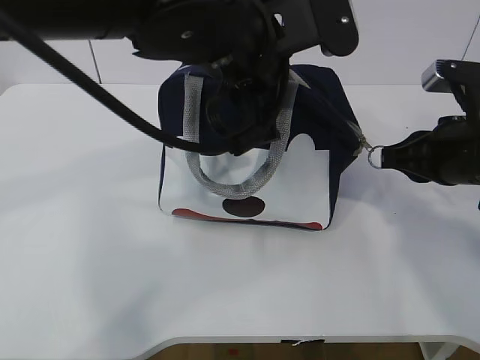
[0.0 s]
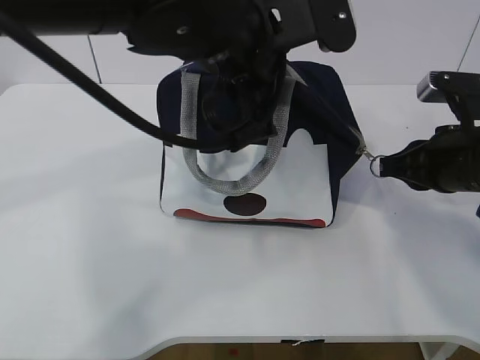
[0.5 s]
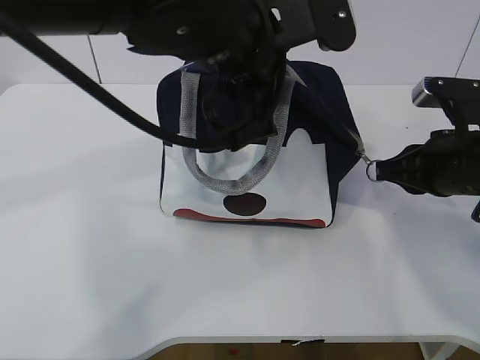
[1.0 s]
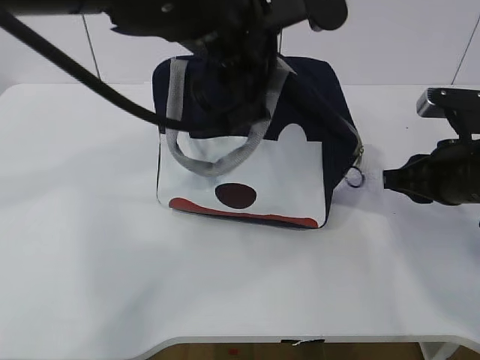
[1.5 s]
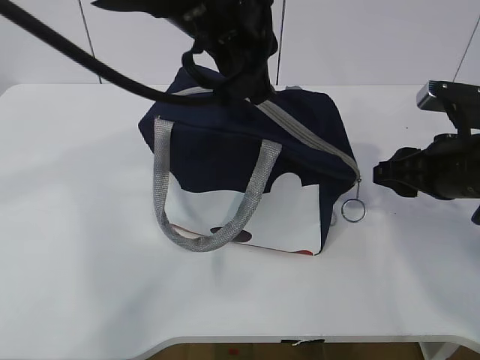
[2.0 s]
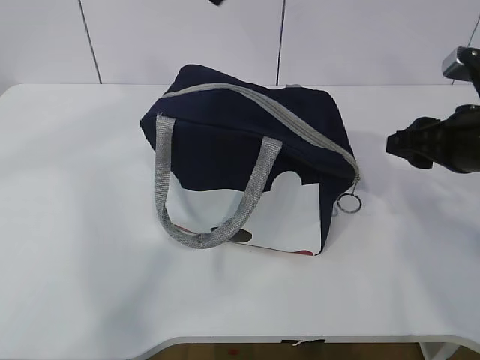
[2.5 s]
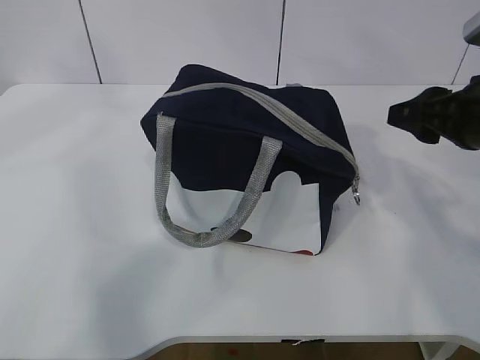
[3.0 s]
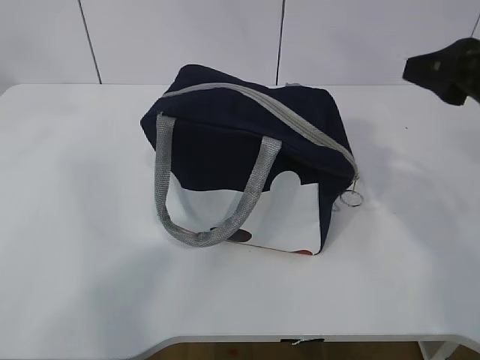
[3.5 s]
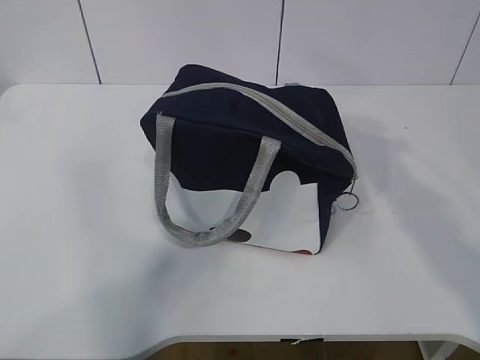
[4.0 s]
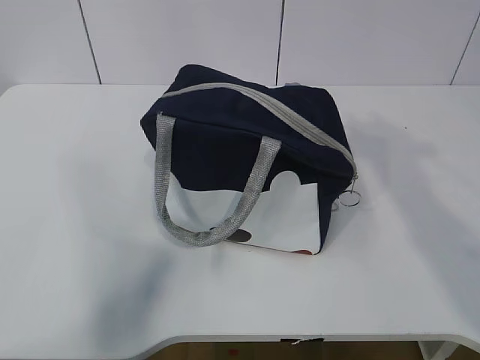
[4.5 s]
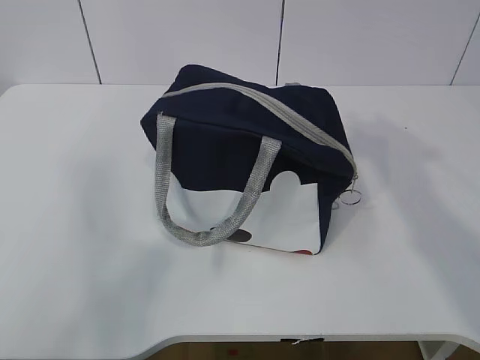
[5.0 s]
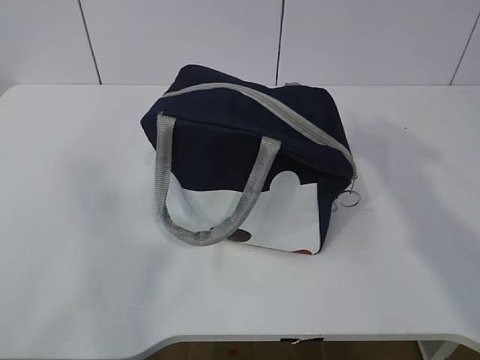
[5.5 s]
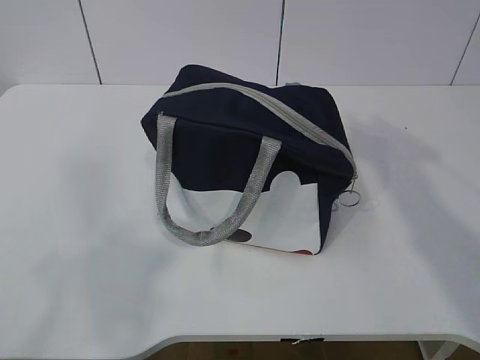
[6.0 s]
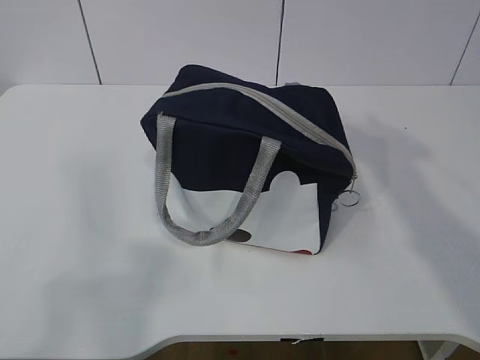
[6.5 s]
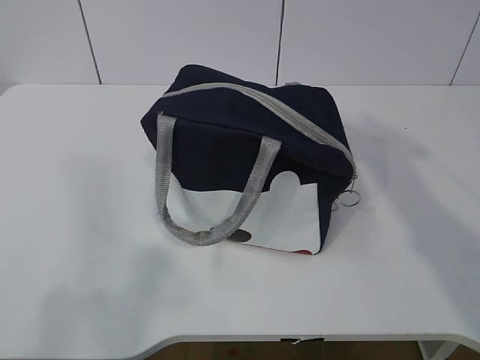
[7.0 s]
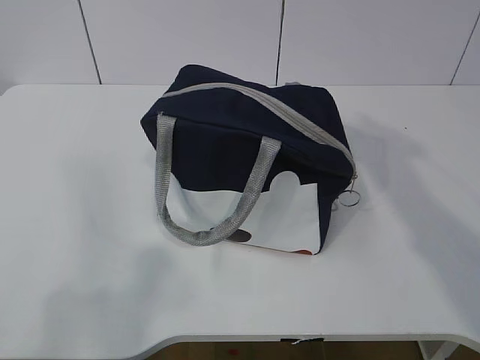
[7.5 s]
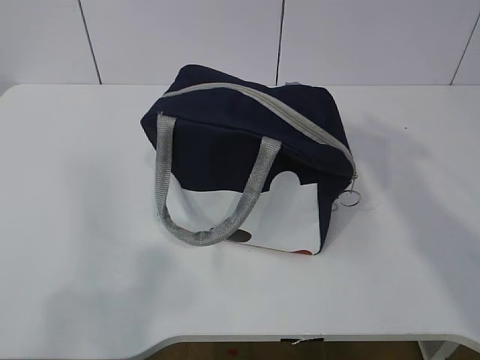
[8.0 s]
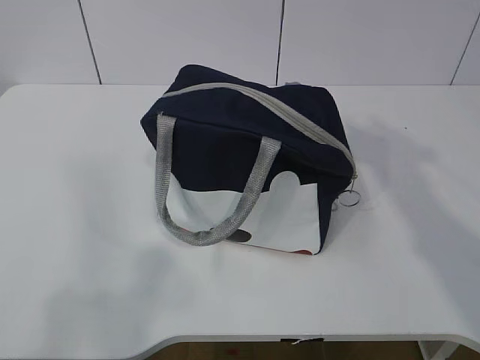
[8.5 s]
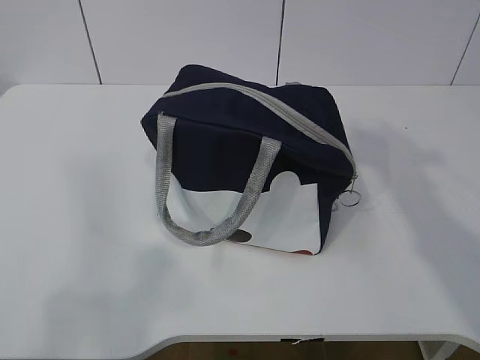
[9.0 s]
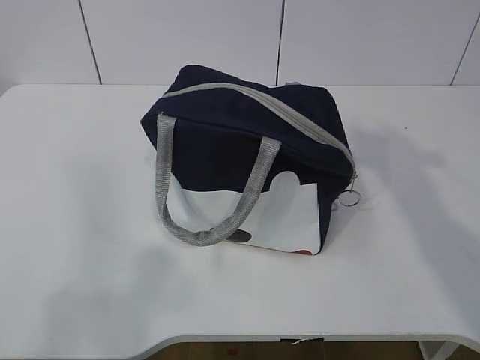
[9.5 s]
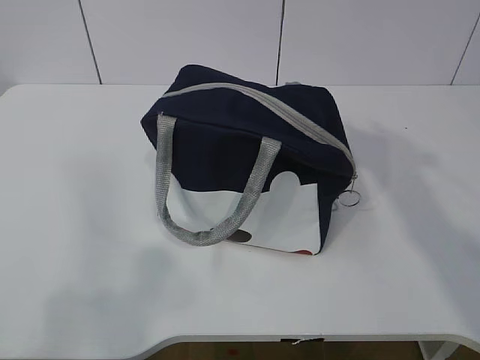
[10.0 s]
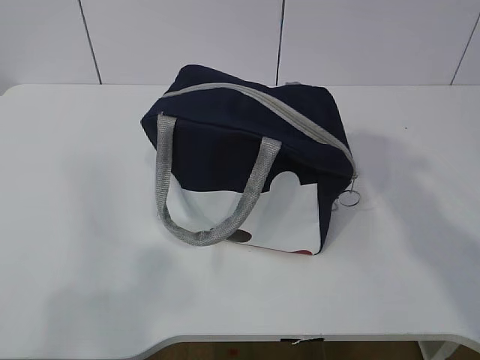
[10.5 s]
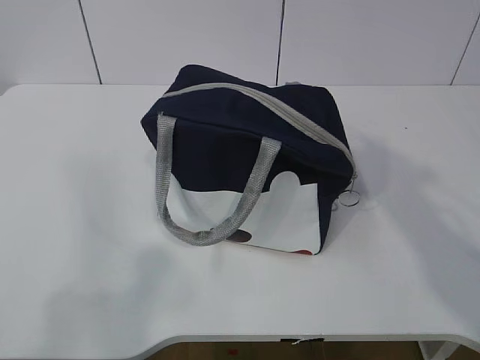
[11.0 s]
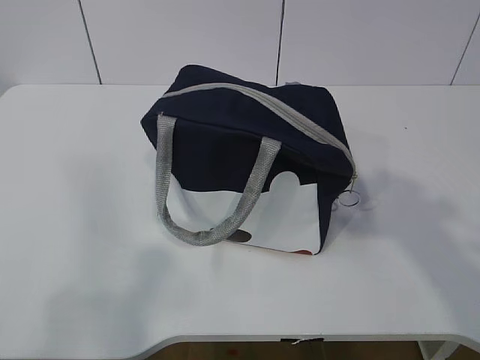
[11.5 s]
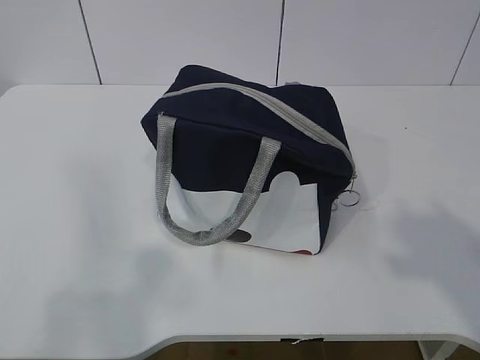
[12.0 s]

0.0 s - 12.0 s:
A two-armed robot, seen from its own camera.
0.0 s - 2.0 s: The left gripper opens, while the right gripper opens up.
2.0 s - 4.0 s: The left gripper goes about 35 cm to the left, upward and backward, while the right gripper heads upward and backward, covering about 20 cm.
4.0 s - 6.0 s: The right gripper moves backward, approximately 5 cm. The left gripper travels downward, backward and to the left by roughly 25 cm.

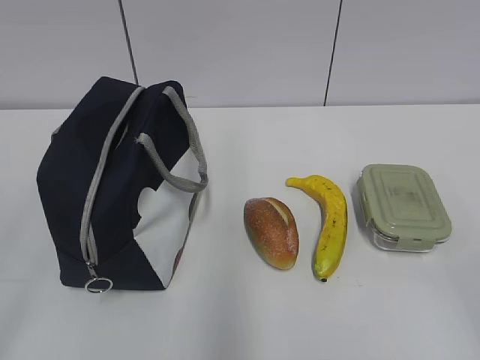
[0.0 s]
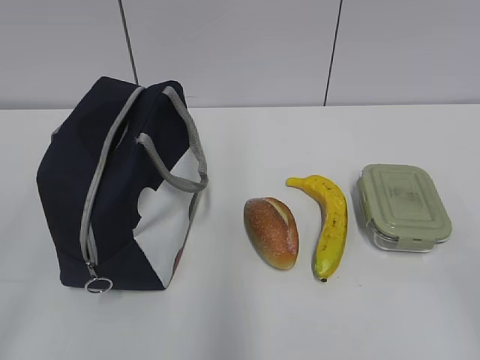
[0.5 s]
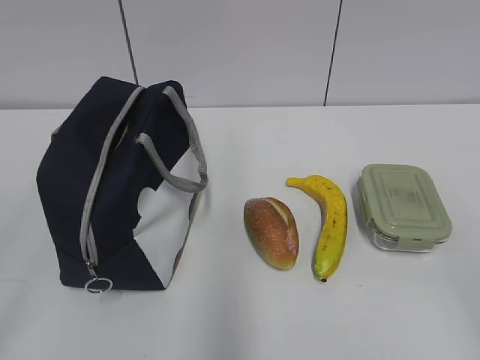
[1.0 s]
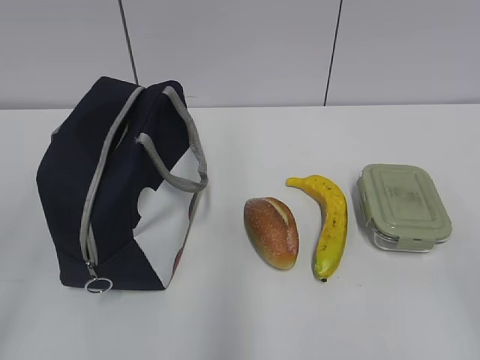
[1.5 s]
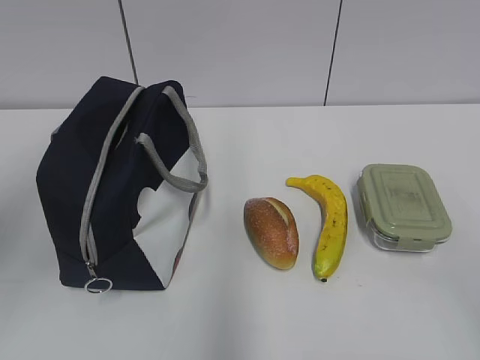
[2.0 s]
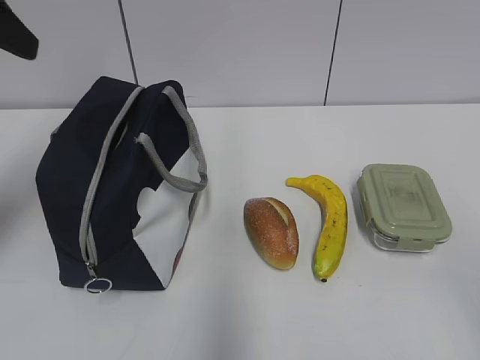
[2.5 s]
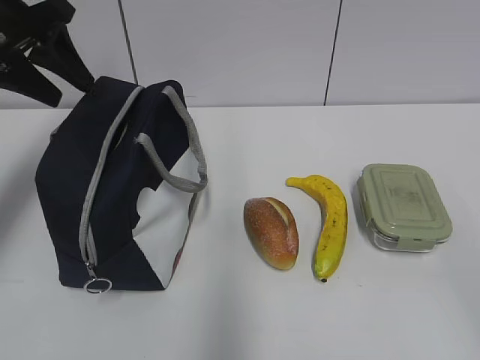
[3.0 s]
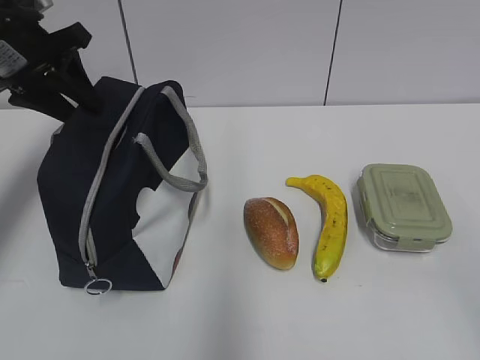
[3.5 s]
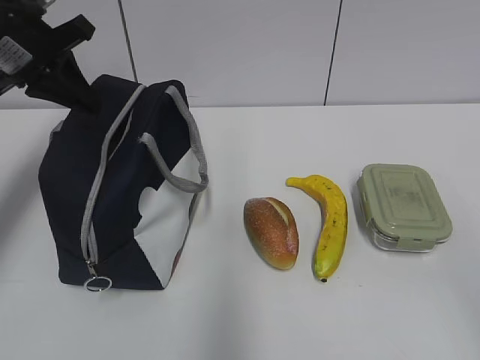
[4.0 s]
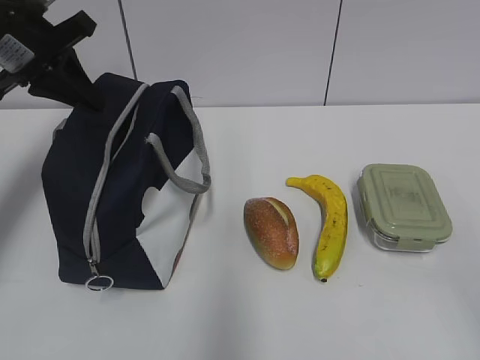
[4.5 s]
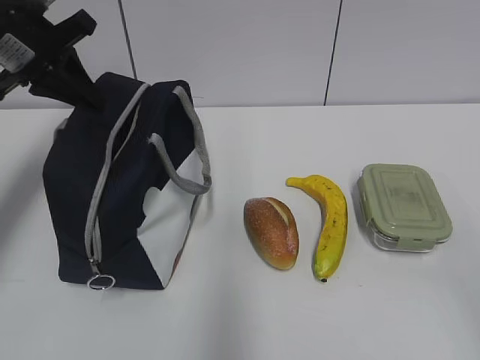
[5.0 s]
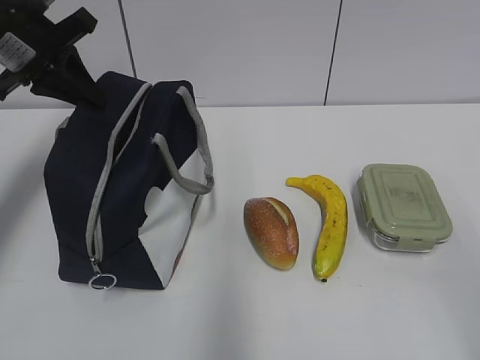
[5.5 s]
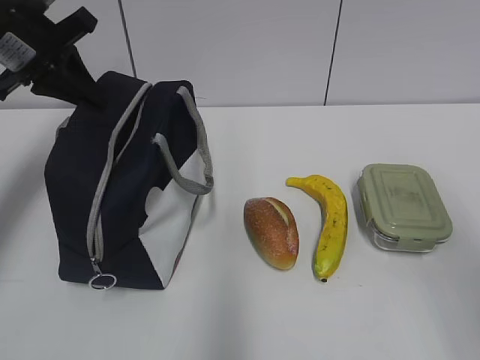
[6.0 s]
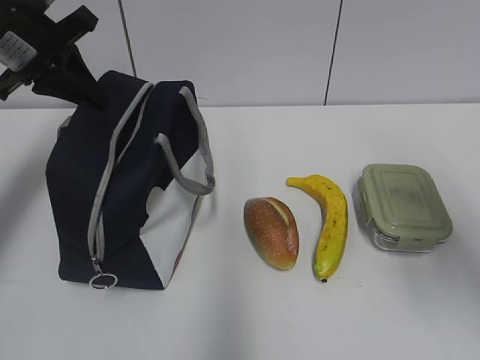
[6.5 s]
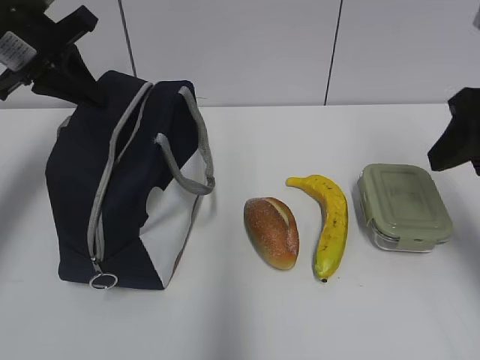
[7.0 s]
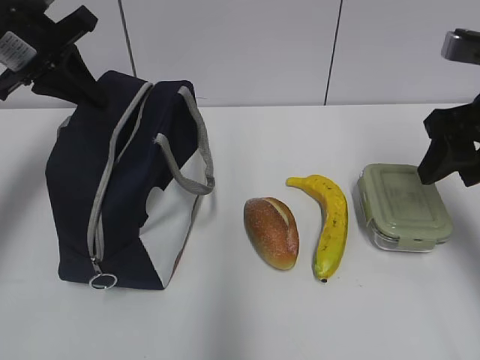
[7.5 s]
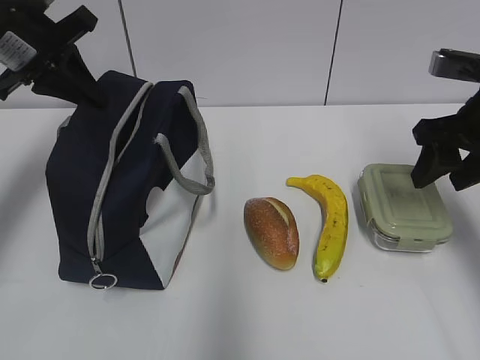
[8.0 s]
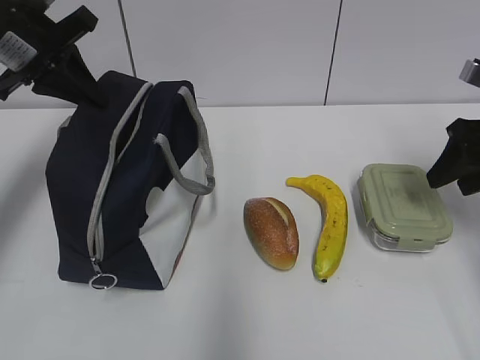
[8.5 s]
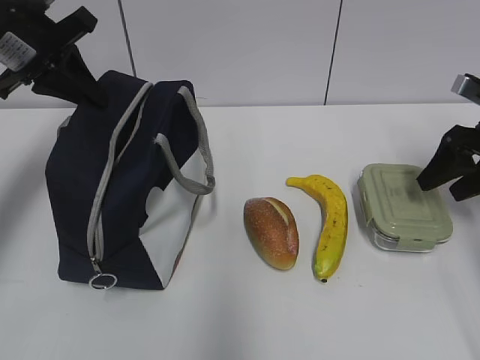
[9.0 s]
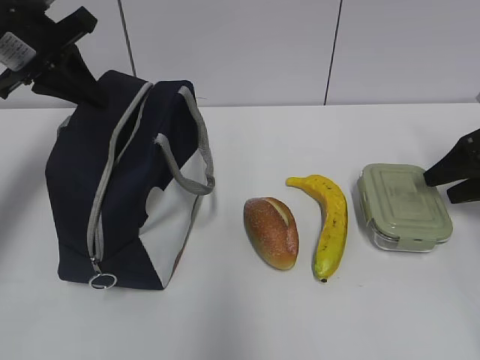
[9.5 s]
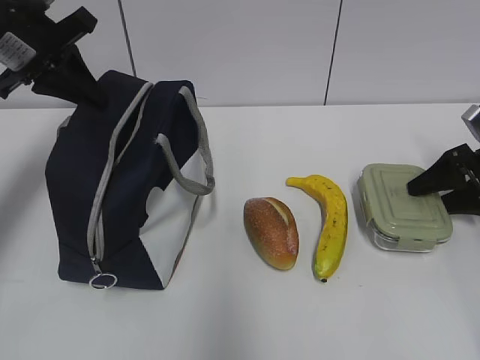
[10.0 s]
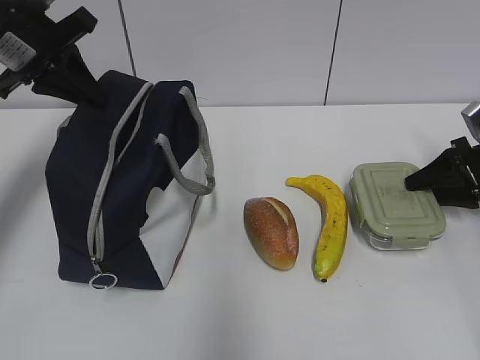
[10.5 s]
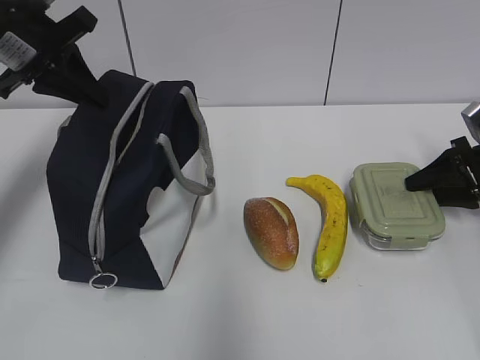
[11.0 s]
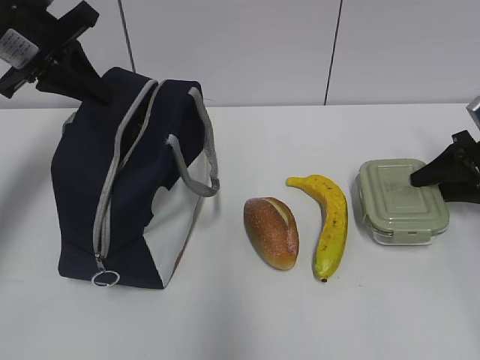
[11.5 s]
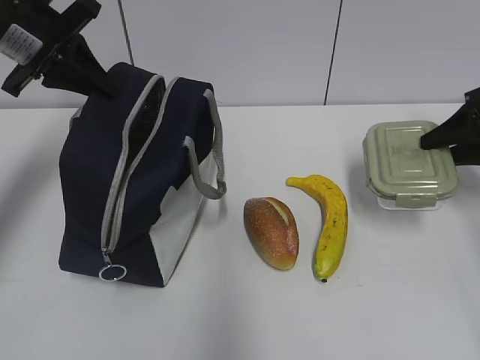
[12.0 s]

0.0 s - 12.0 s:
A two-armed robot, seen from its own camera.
Step, 0.0 s - 10.0 s: Grab the lunch box with your right hand.
2.0 s - 4.0 s: The left gripper heads forward, covering approximately 25 cm, and closes up.
4.0 s - 6.0 s: The right gripper moves forward, about 5 cm.
6.0 s - 8.0 s: The right gripper heads forward, covering approximately 25 cm.
8.0 s - 10.0 s: The right gripper goes some 20 cm downward, to the right and forward.
10.0 s - 12.0 s: The right gripper shifts approximately 5 cm upward.

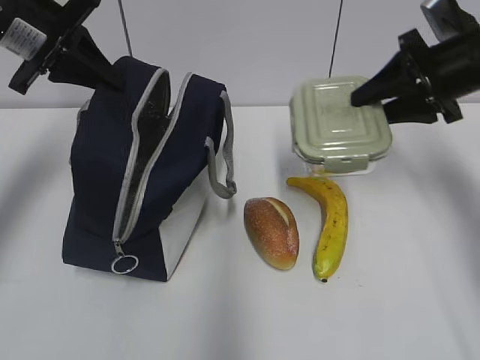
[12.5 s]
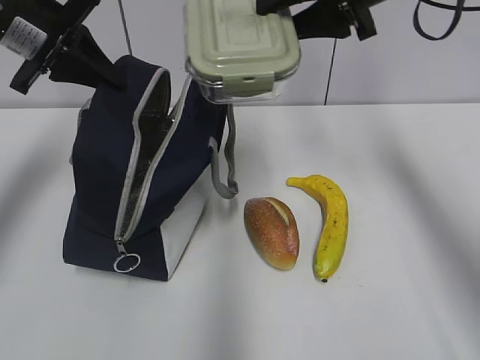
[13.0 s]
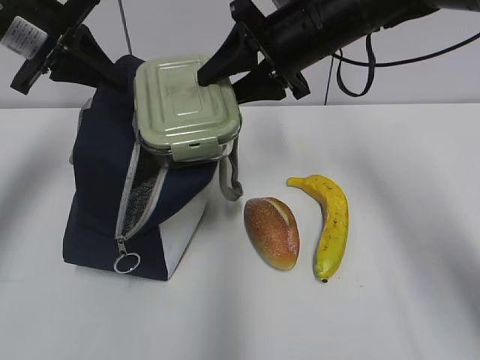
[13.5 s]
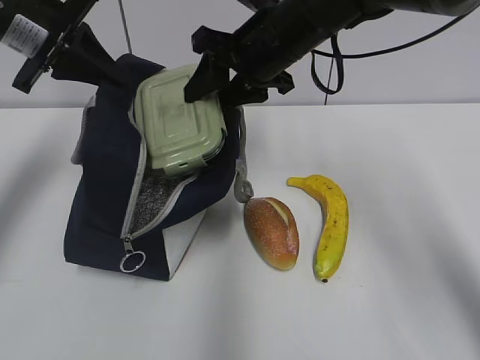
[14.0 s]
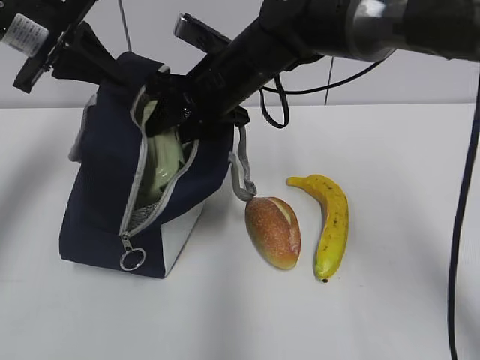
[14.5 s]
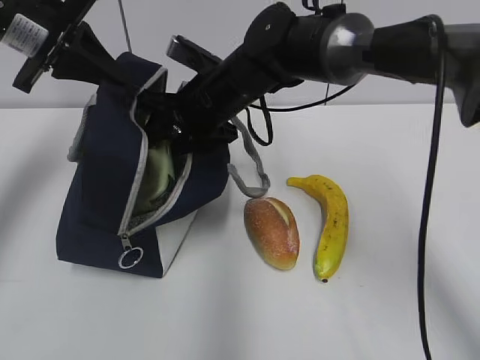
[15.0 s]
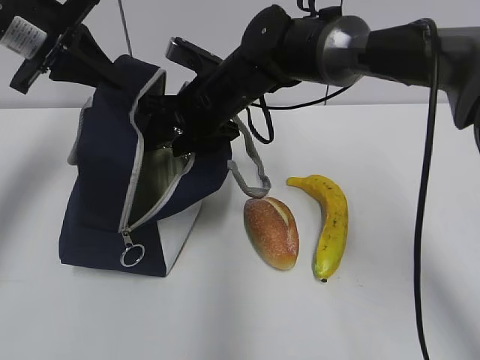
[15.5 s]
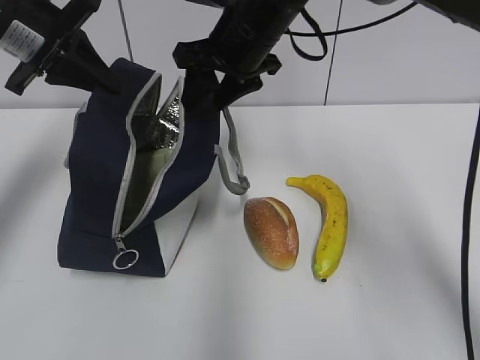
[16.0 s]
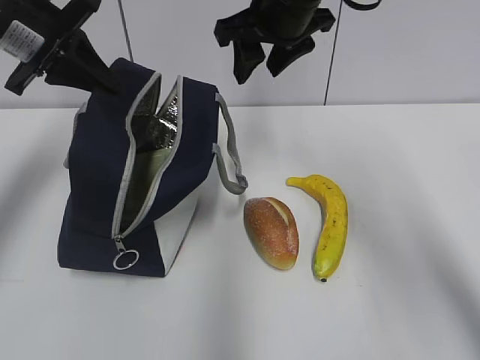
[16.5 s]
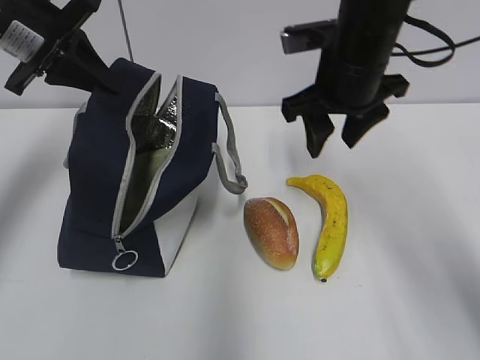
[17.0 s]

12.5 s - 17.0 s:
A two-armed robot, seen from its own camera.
Step, 13.5 s - 15.5 s: Place it into the bag with your right hand.
12.5 s - 14.5 s: The right gripper heads to the left, covering approximately 25 cm.
14.5 s - 17.0 s: The right gripper heads to the right, covering about 10 cm.
